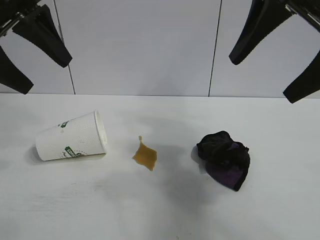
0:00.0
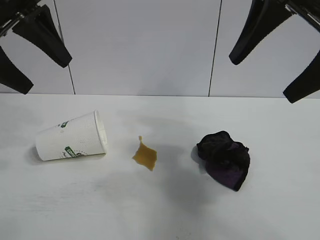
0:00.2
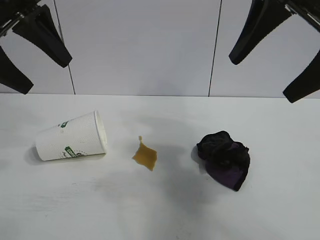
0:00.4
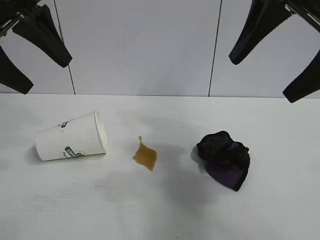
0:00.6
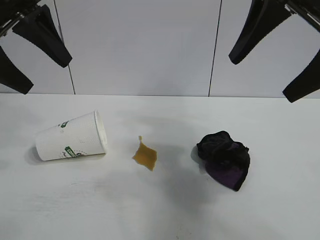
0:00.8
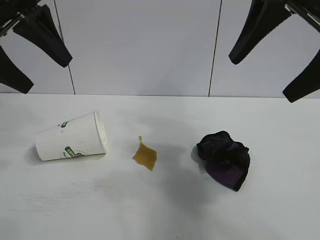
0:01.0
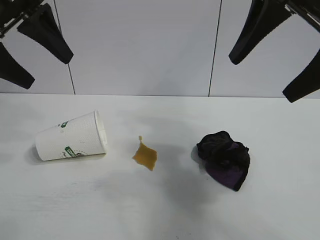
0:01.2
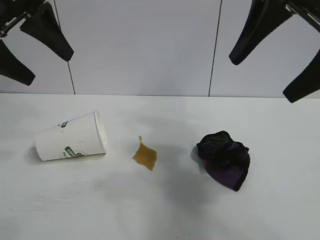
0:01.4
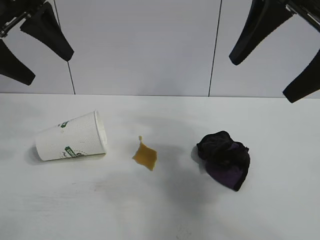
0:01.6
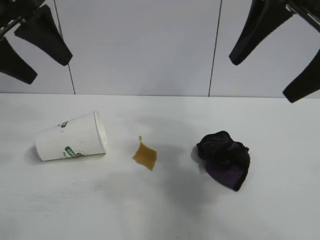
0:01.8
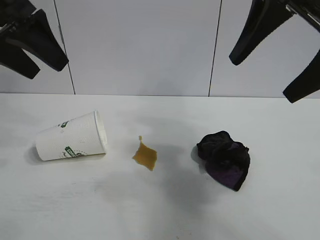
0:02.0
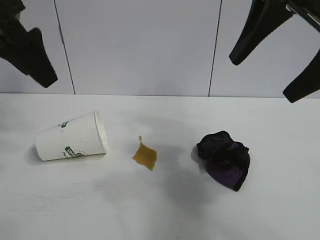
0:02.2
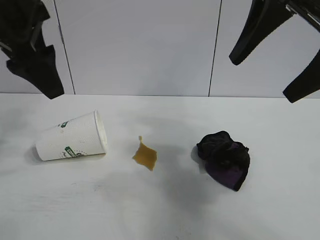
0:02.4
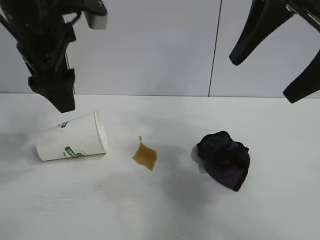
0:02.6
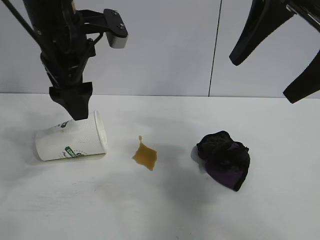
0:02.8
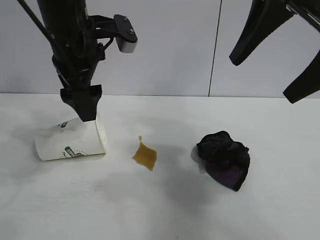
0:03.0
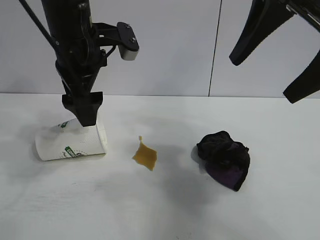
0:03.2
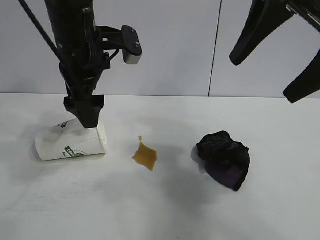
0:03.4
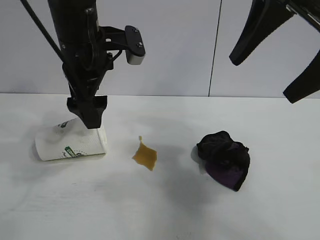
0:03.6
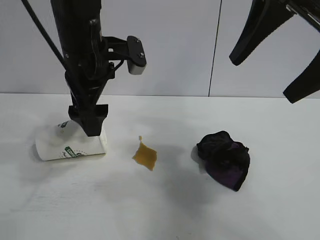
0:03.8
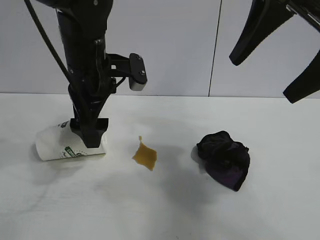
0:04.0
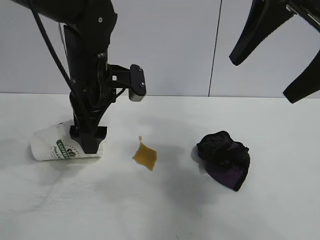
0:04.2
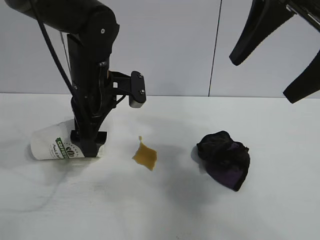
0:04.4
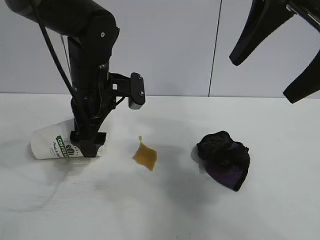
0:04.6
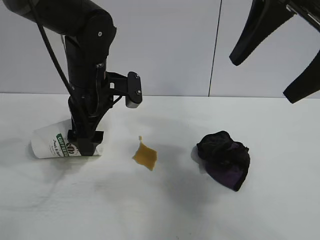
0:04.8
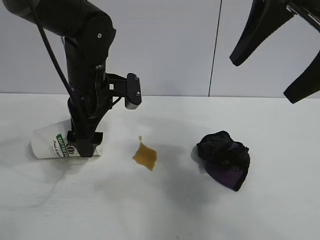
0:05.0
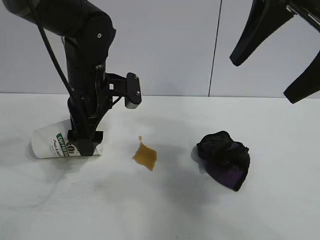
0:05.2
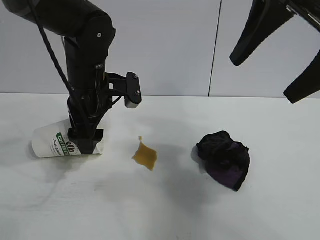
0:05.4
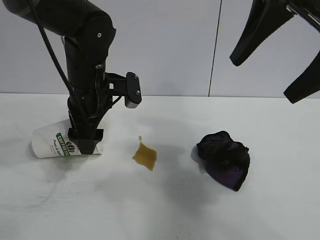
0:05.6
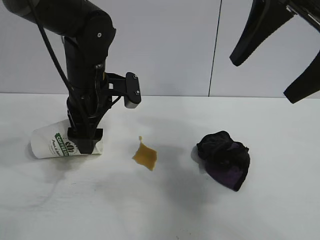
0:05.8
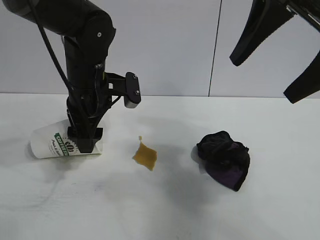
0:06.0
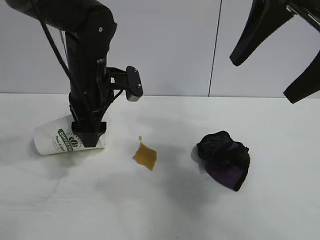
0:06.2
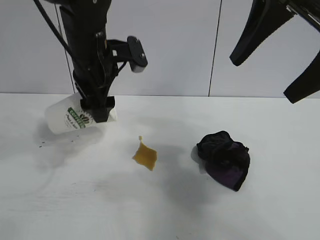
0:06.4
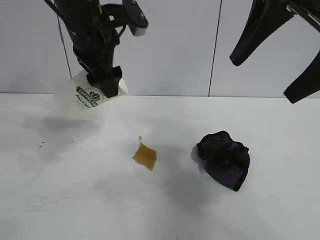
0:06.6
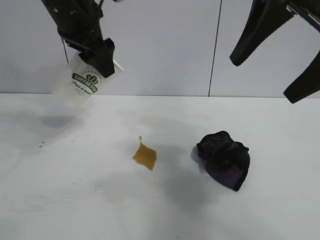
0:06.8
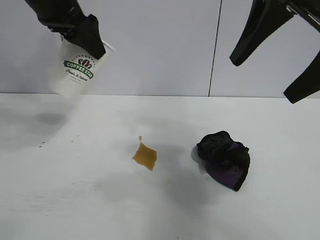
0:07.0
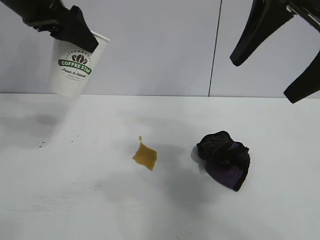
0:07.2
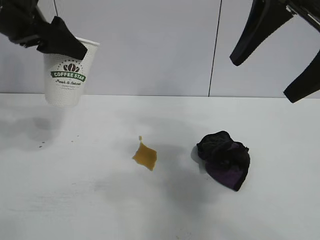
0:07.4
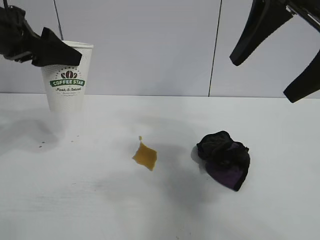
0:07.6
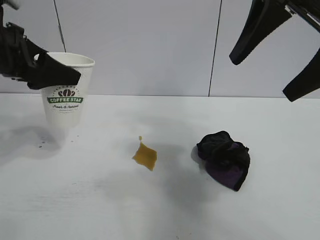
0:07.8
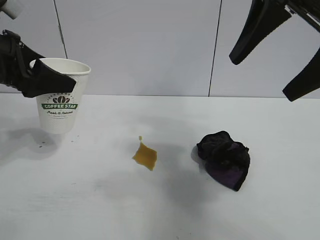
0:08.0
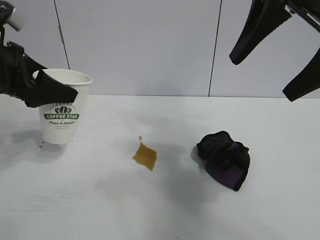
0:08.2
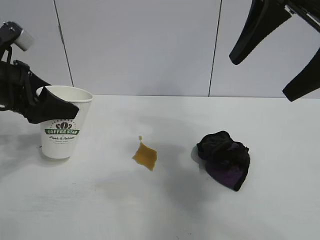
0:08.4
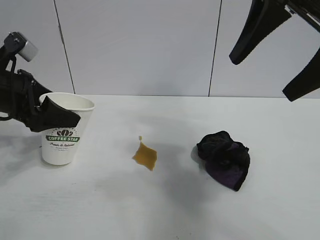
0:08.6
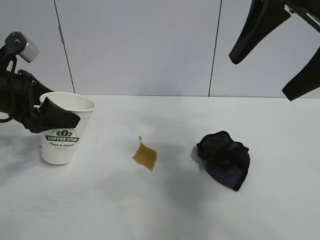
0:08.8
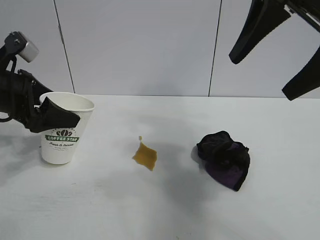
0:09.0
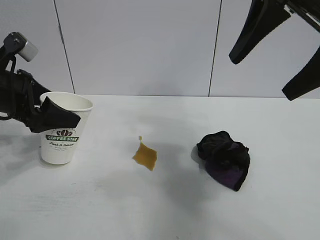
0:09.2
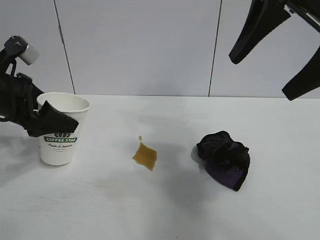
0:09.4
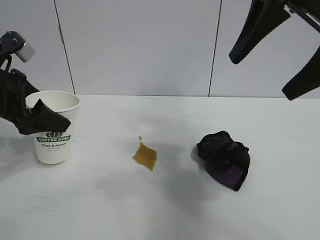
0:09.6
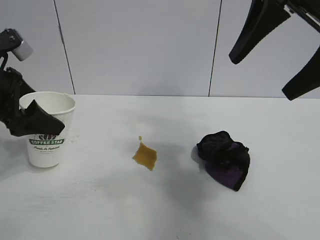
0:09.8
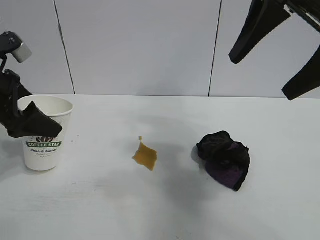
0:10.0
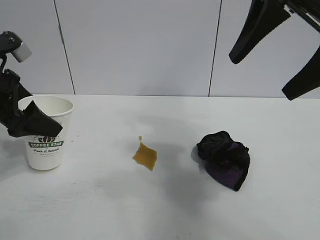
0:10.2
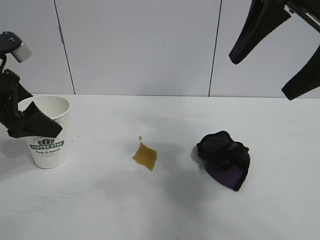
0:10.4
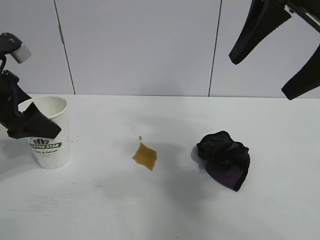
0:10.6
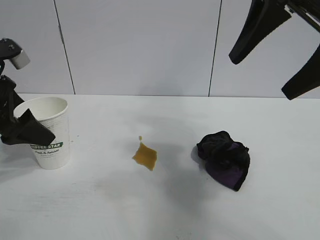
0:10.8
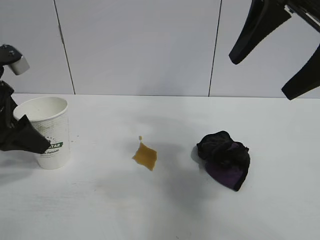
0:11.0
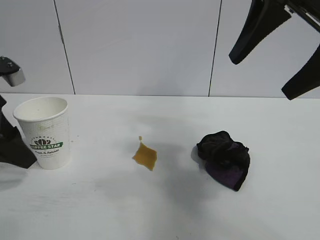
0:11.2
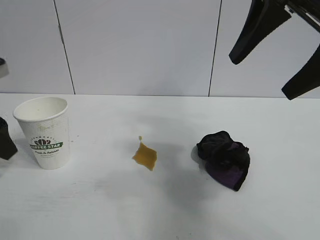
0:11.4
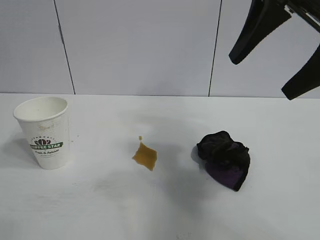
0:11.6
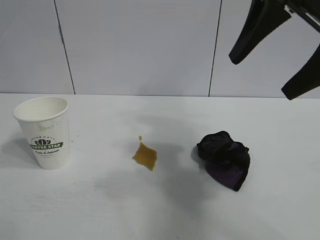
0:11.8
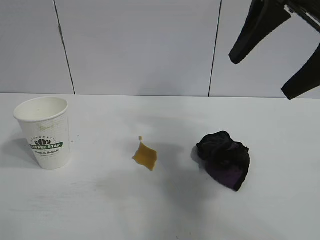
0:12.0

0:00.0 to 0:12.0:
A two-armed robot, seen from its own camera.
Task of the whole recording: the left gripper pick up the fallen cup and place it upright, the right gripper grasp the black rag and wipe the stain on the table, the right gripper put the black rag back in its original position.
Step, 0:01.0 to 0:06.0: Grasp the paper cup with left gripper.
Step, 0:06.2 to 0:10.6: Stand the paper cup upright with left gripper.

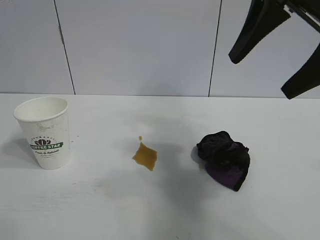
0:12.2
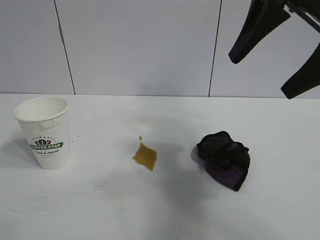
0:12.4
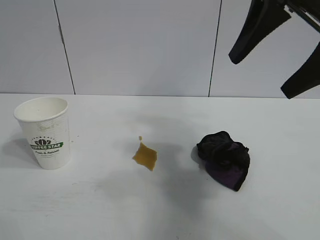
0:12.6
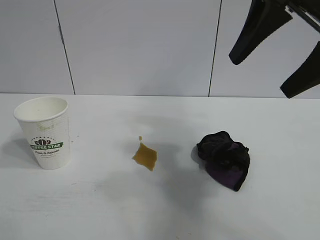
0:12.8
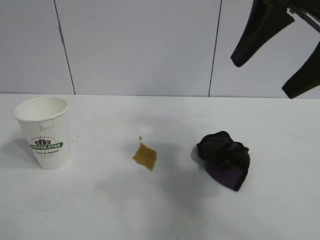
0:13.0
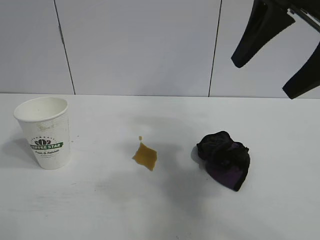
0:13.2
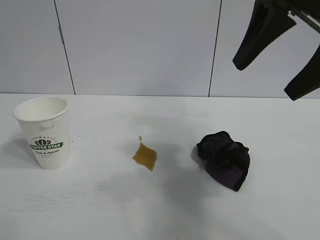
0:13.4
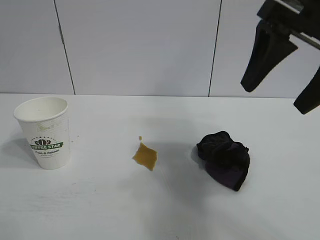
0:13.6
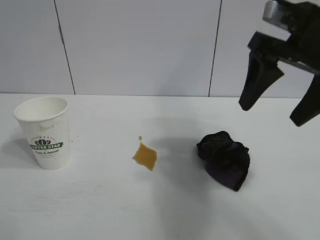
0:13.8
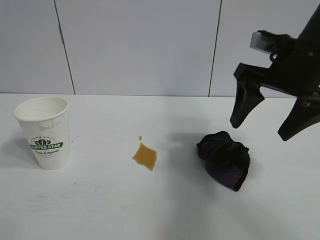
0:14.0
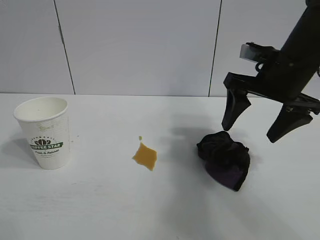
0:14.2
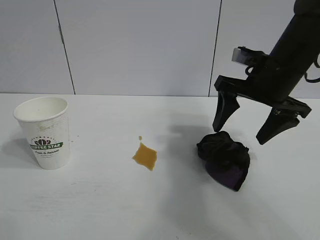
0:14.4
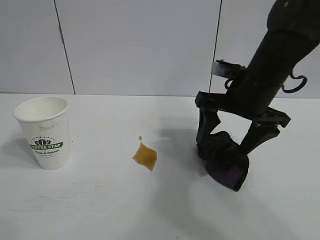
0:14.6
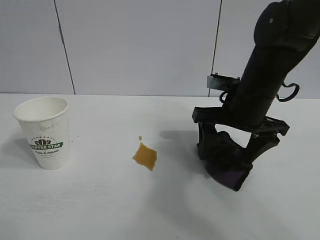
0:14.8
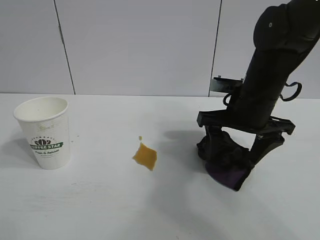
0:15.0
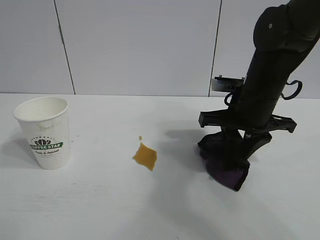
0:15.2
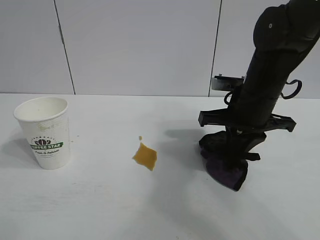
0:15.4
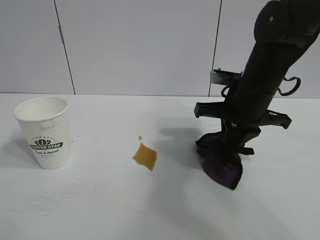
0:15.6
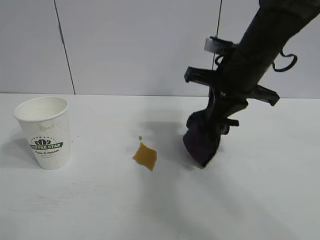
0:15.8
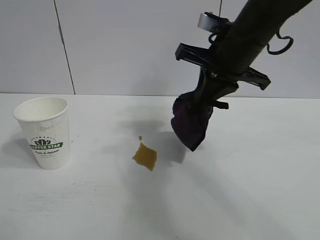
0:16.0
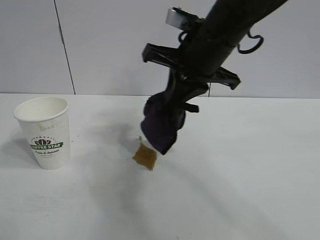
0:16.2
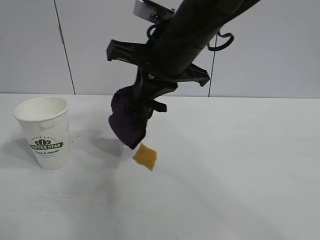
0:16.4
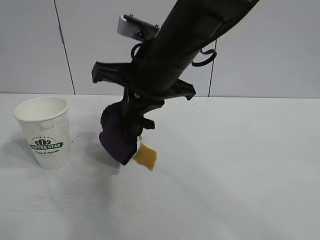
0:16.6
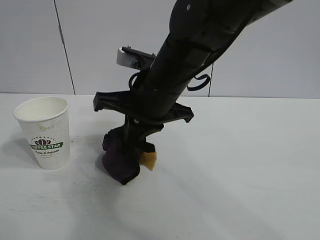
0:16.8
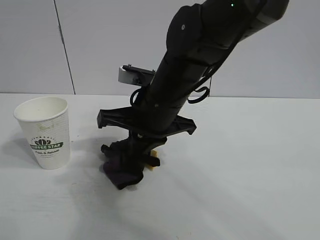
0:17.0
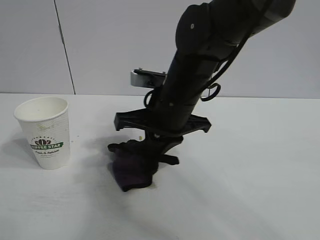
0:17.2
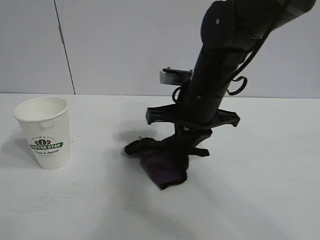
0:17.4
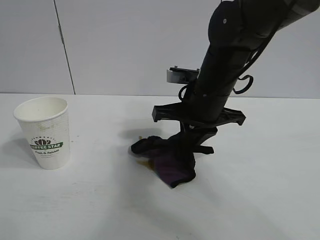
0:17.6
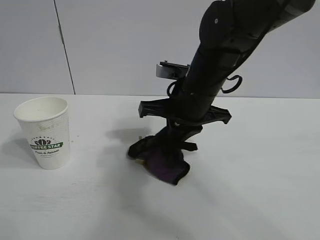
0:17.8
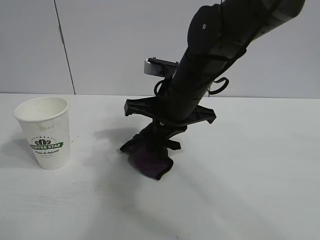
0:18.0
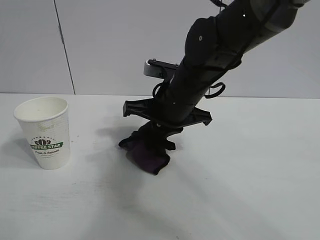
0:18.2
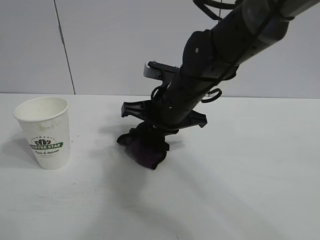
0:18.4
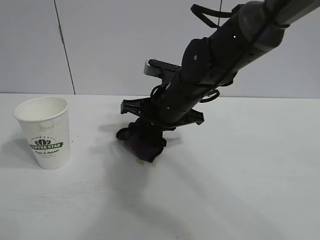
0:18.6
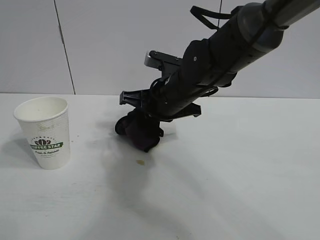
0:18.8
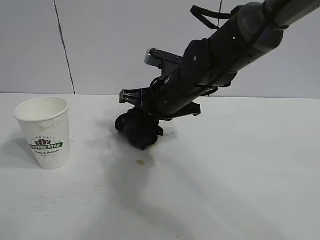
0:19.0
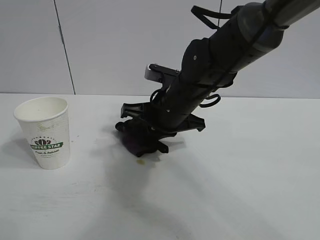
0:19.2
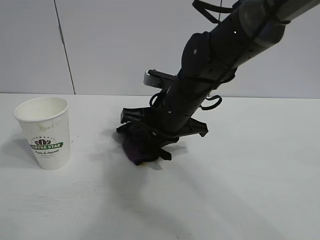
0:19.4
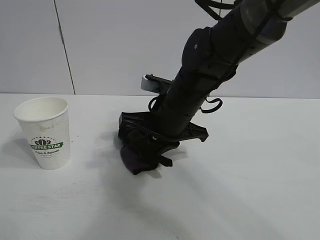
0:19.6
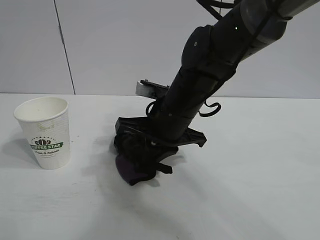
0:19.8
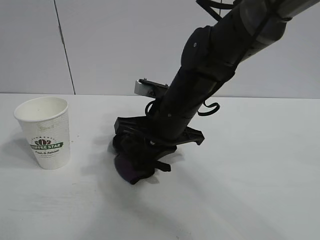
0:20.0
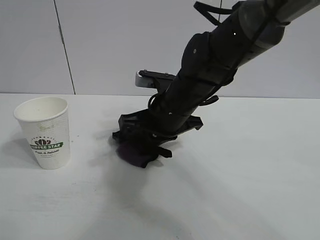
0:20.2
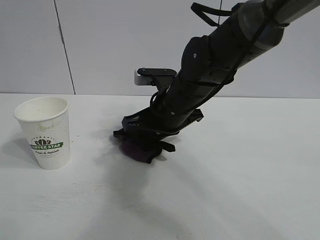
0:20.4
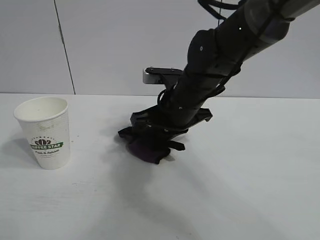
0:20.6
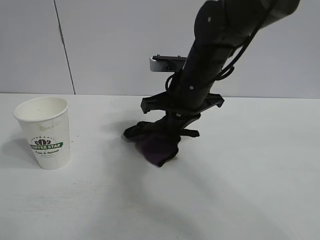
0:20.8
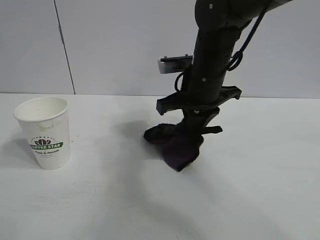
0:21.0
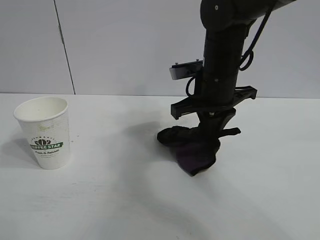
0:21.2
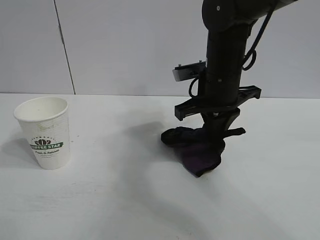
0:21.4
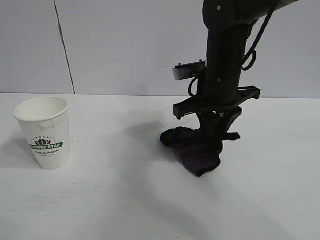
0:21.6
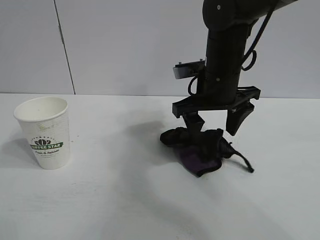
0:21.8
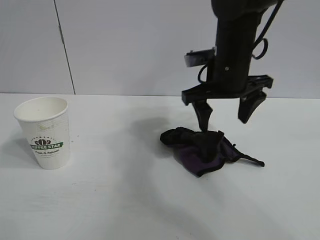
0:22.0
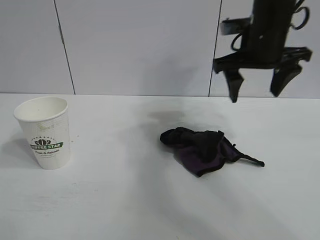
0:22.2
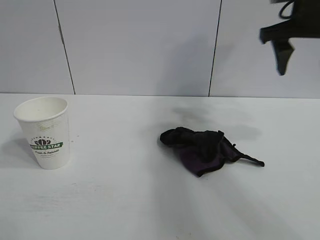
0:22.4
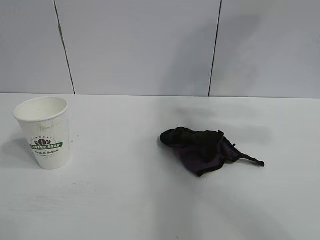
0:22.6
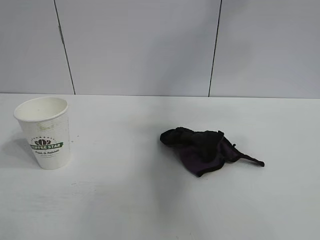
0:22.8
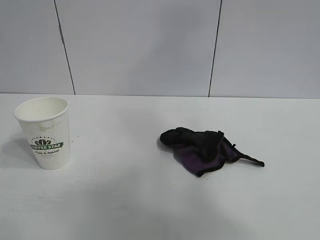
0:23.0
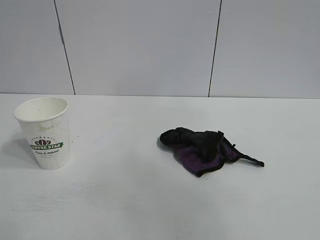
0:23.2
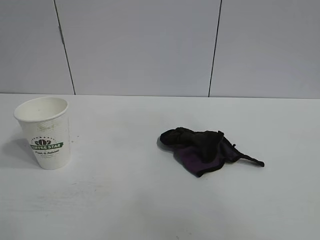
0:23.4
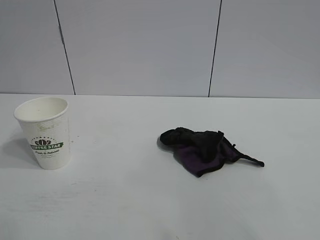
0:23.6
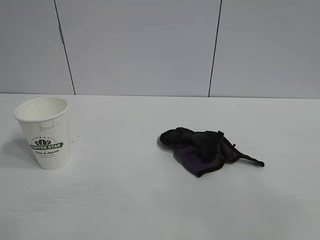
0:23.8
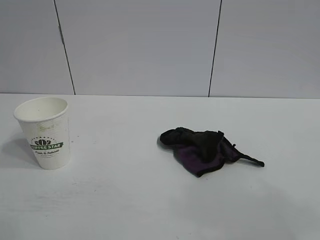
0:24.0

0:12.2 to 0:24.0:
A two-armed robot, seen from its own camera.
Task of the whole recording: the left gripper pick up the fallen cup and place it upright, the right gripper grasp the black rag and wipe the stain on the table, the right gripper put the black rag back in its original position.
Step, 0:12.2 to 0:15.2: Grasp the rag with right gripper.
Step, 0:15.6 to 0:20.4: Wipe the stains off the table with the rag with right gripper.
Step, 0:20.8 to 0:21.8: Place the rag on the table with right gripper.
